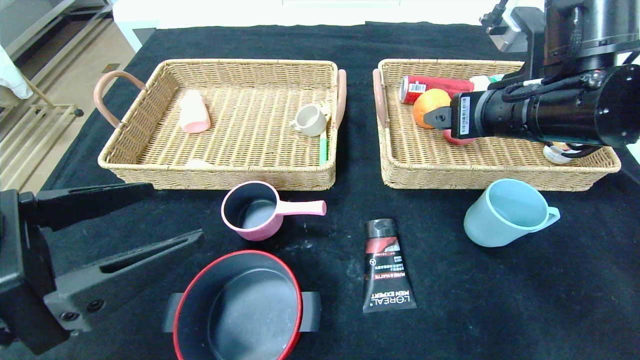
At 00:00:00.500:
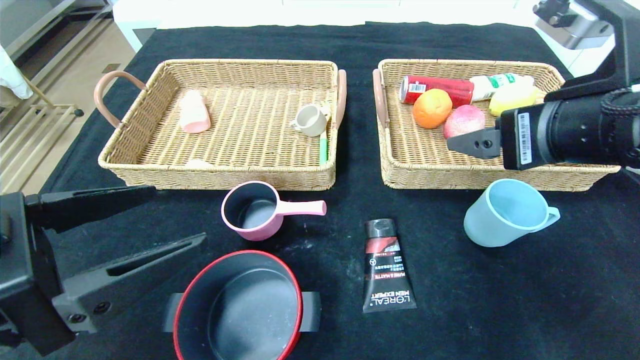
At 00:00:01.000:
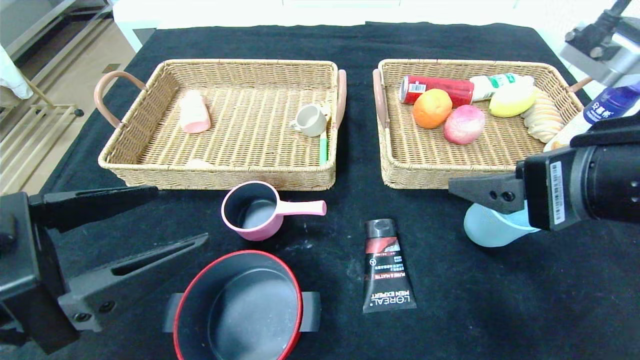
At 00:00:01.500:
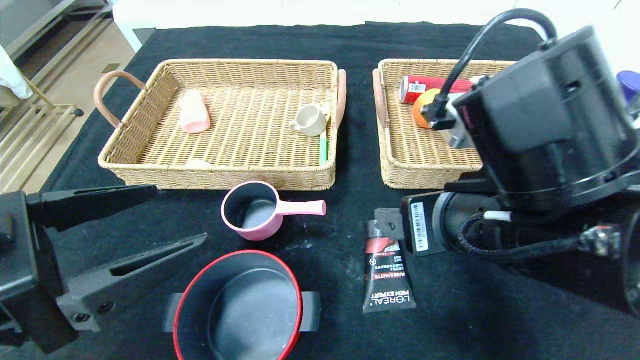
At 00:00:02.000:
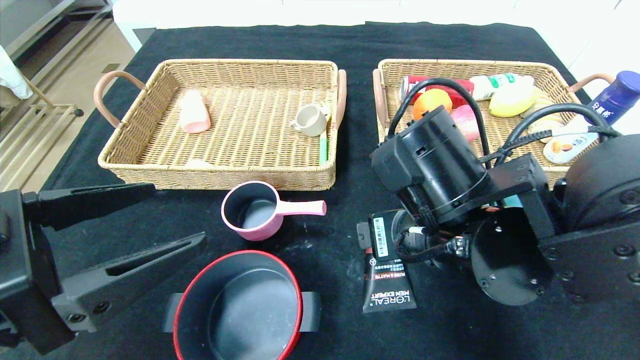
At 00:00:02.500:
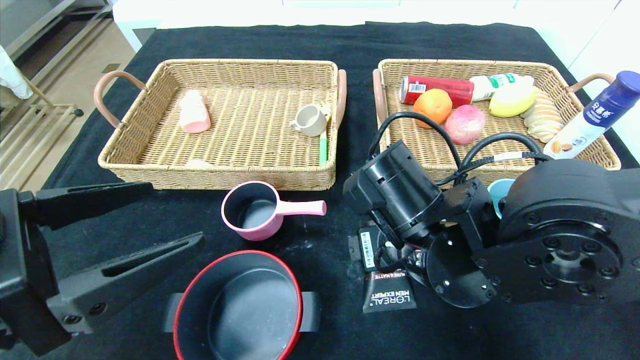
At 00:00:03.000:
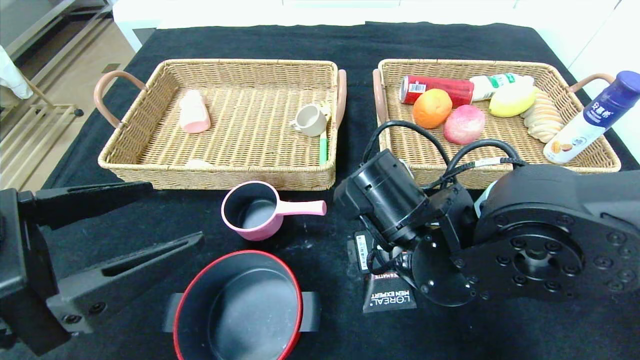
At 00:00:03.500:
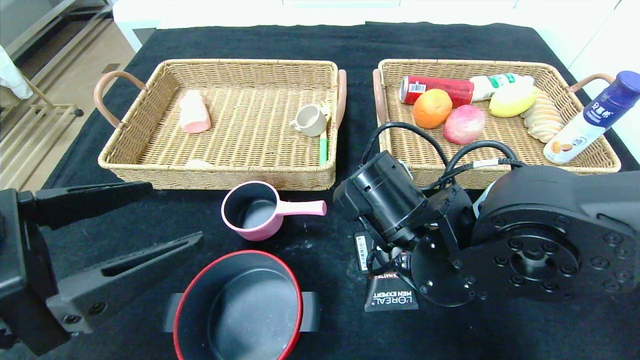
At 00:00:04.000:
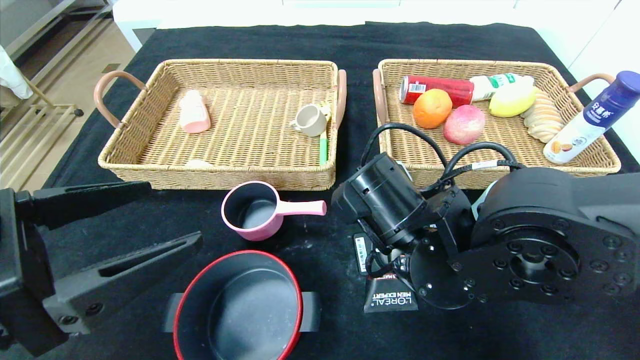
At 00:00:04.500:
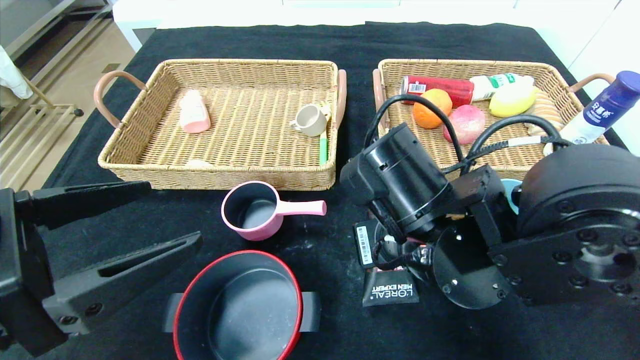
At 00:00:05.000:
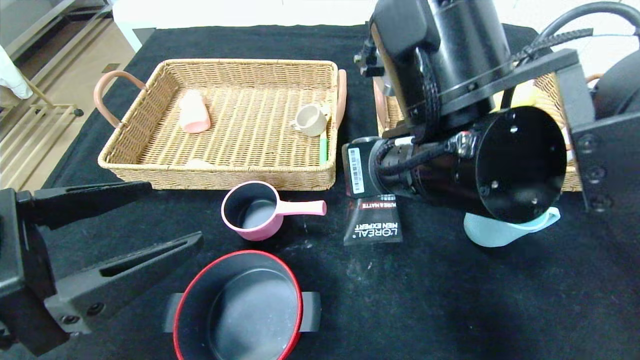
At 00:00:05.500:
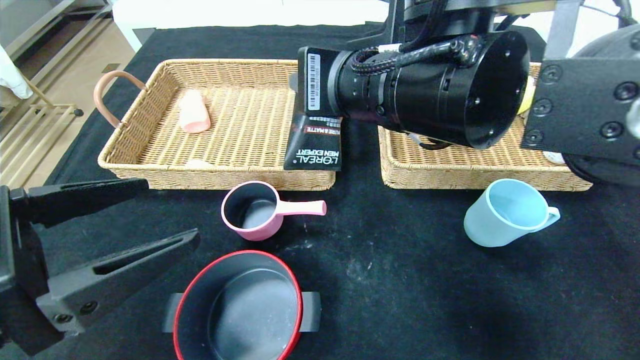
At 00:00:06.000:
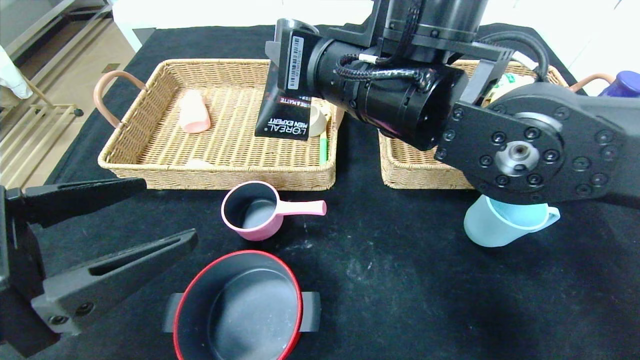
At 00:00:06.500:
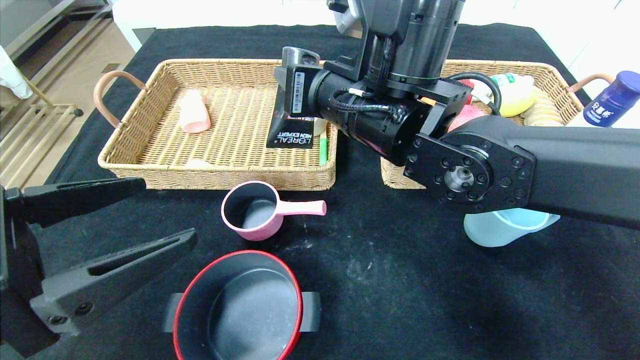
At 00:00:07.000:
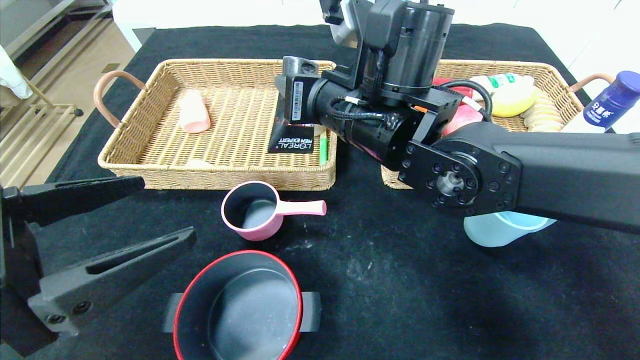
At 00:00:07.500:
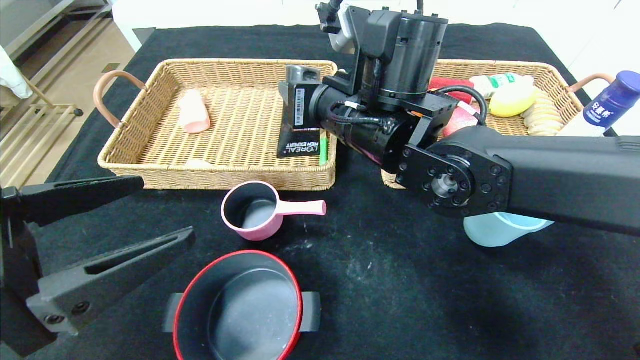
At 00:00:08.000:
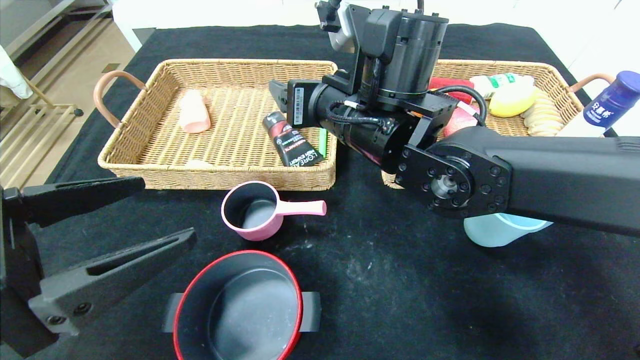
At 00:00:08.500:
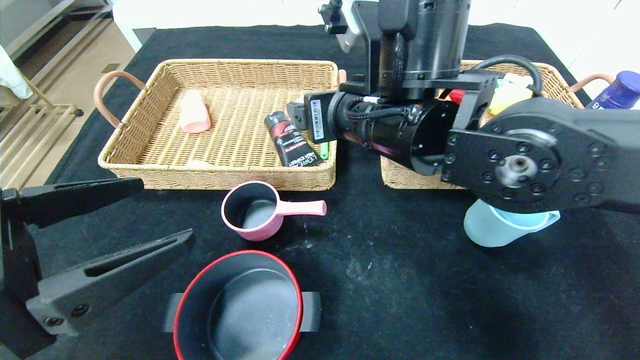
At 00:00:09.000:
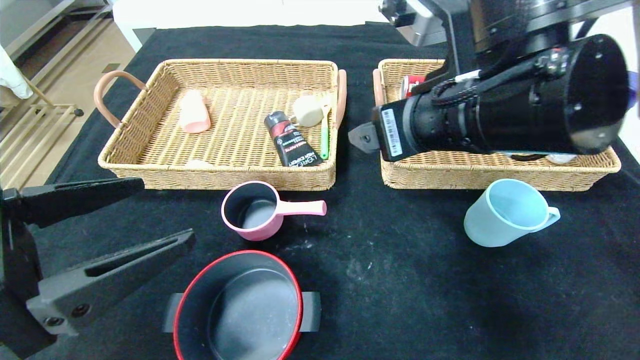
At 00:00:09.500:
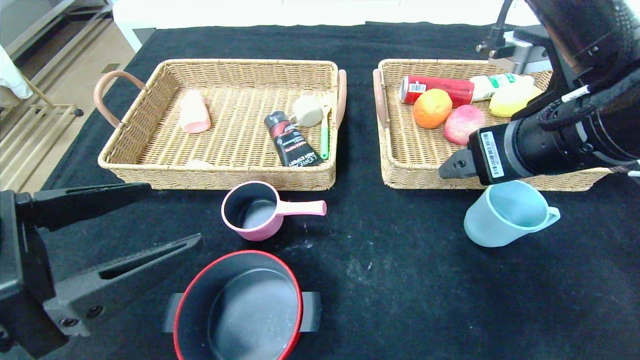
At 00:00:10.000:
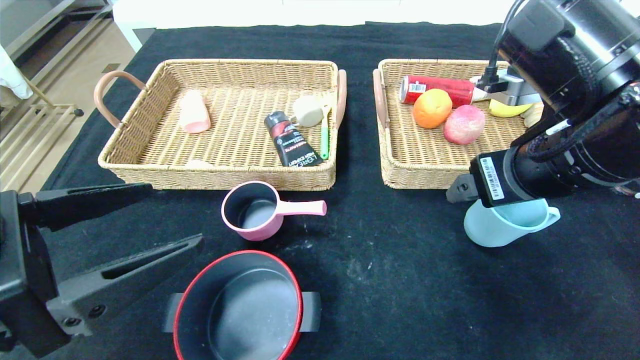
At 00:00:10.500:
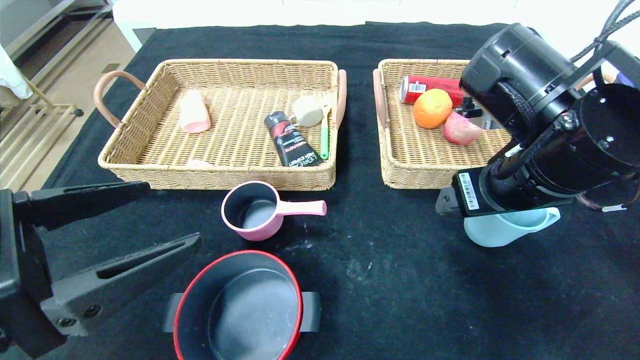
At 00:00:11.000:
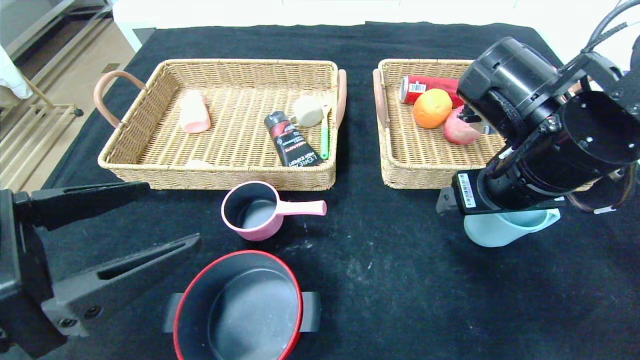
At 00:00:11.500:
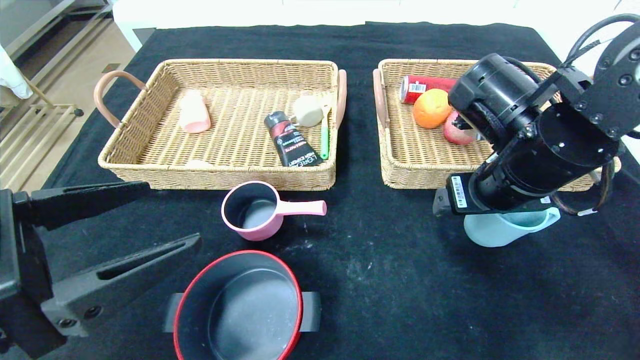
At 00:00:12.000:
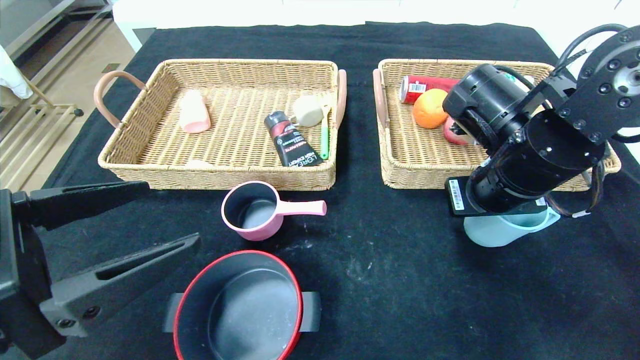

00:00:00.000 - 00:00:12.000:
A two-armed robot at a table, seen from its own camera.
00:00:00.000 - 00:00:02.000: The right gripper is displaced to the left, downward and backward by about 15 cm.
00:00:02.000 - 00:00:04.000: The right gripper closes its fingers.
00:00:04.000 - 00:00:06.000: The right gripper goes roughly 15 cm upward.
00:00:06.000 - 00:00:08.000: The right gripper moves roughly 5 cm, and opens its fingers.
00:00:08.000 - 00:00:10.000: The right gripper goes about 20 cm to the right and backward.
00:00:10.000 - 00:00:12.000: The right gripper moves forward, about 5 cm, and closes.

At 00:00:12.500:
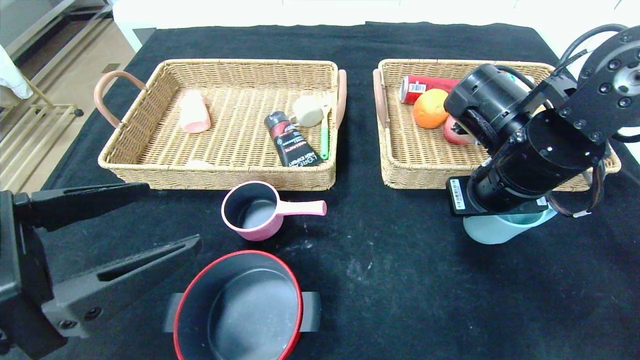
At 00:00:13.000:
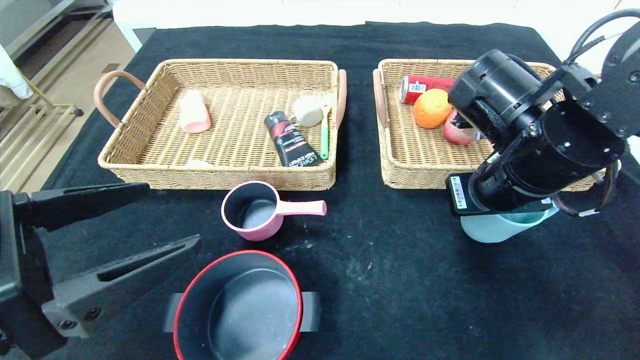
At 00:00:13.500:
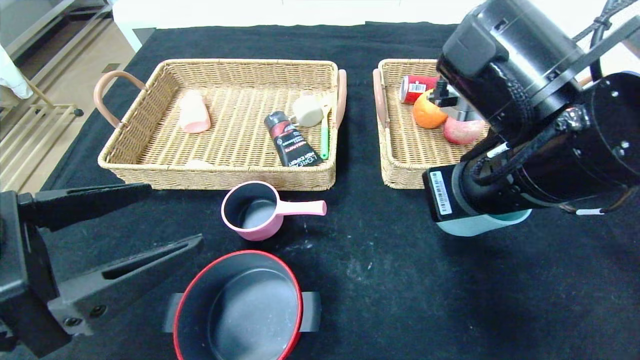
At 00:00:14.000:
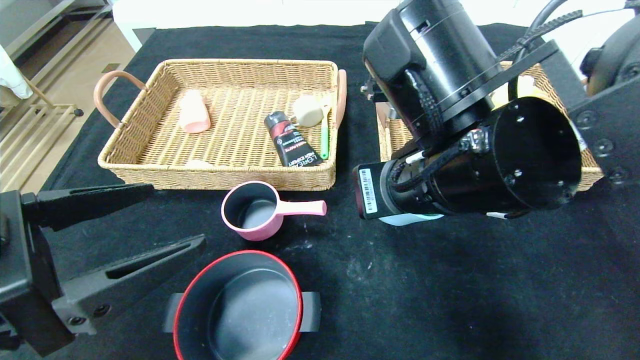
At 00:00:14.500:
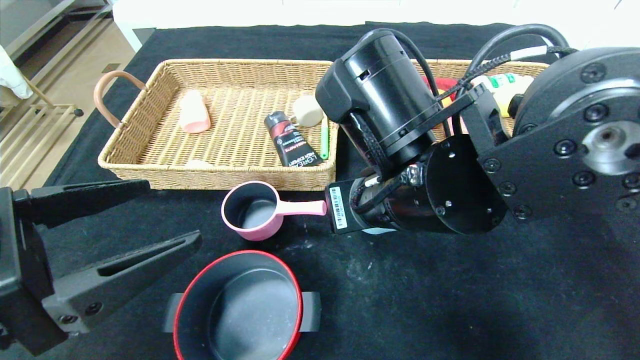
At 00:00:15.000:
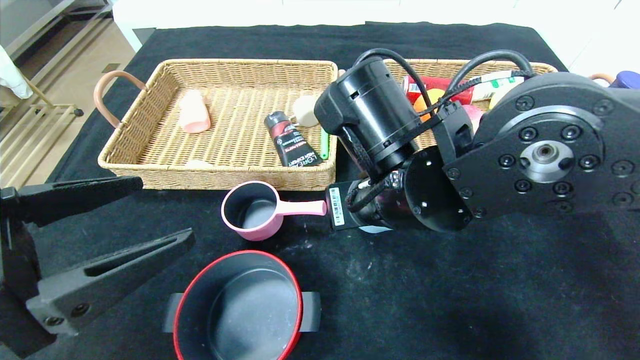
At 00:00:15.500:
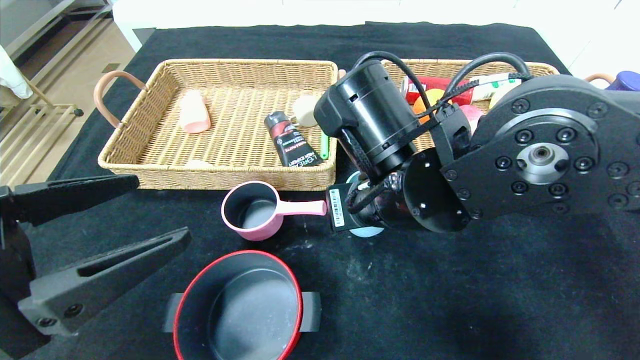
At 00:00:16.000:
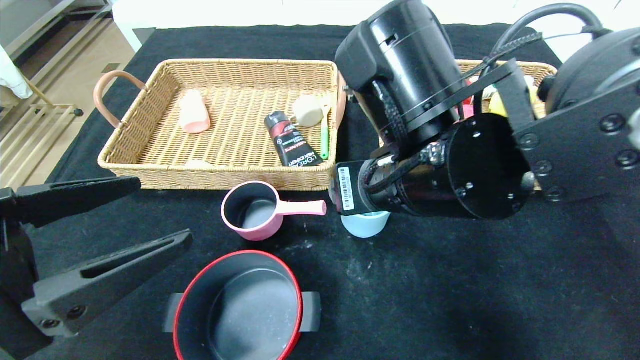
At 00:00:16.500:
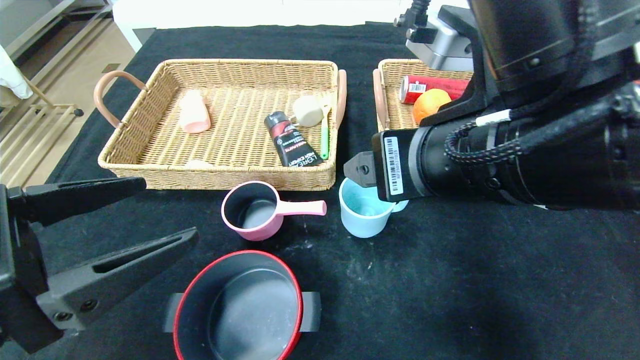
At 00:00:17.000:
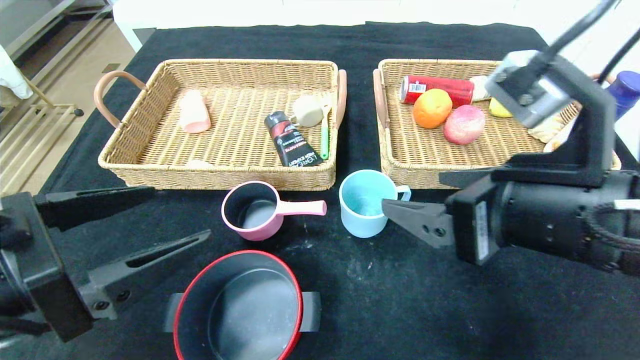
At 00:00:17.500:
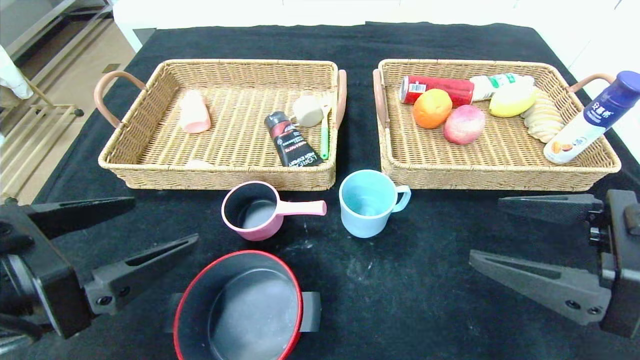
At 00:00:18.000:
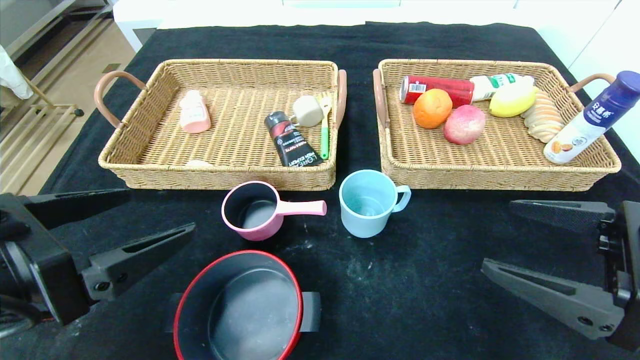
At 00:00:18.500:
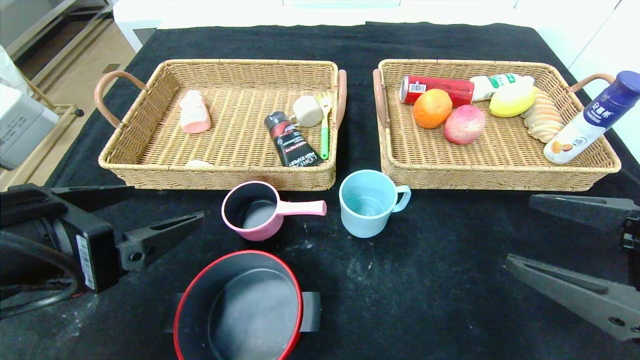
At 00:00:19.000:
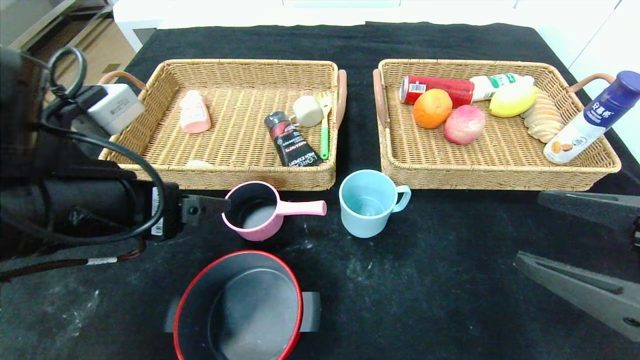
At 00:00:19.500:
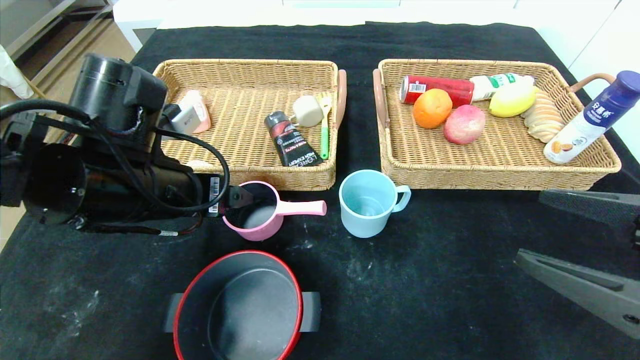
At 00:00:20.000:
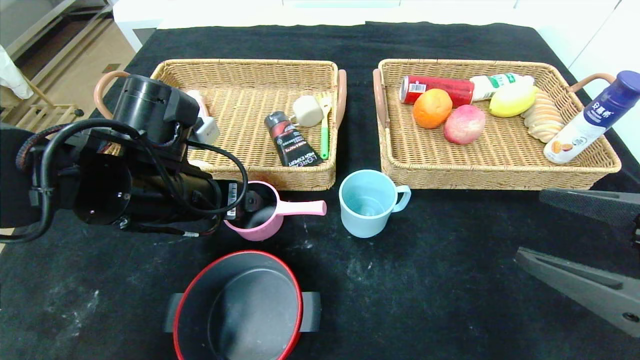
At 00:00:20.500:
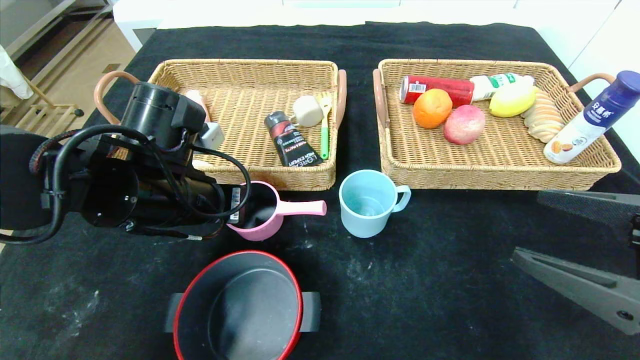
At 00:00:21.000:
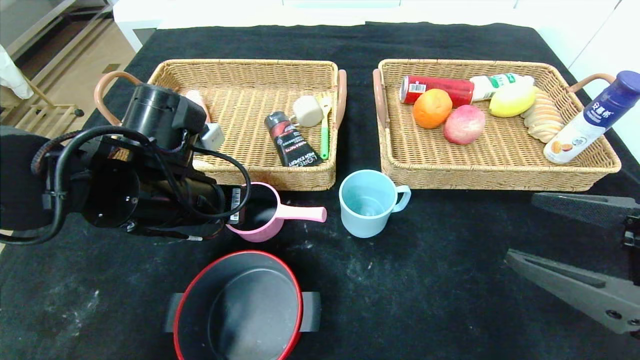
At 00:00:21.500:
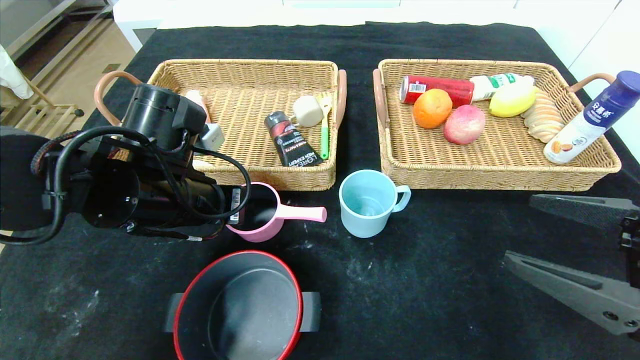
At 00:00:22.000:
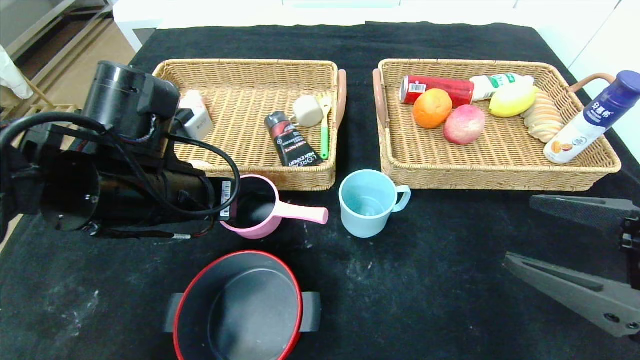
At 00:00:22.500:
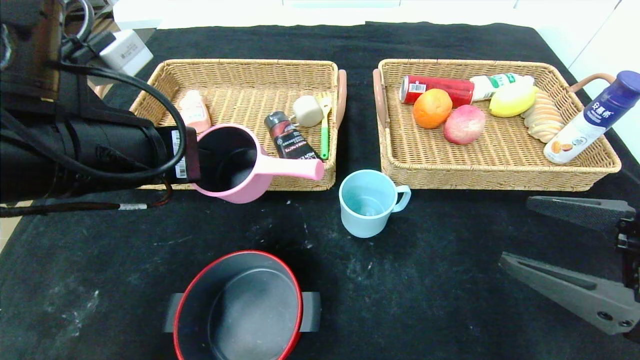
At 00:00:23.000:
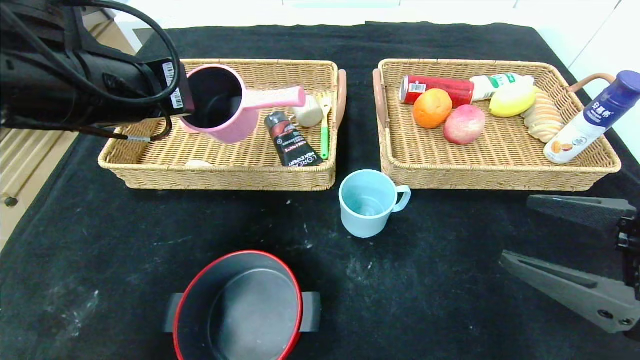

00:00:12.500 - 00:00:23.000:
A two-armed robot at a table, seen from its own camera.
Step, 00:00:12.500 - 00:00:15.500: Place the blue cup in the center of the table.
00:00:12.500 - 00:00:14.500: The right gripper shifts about 15 cm to the left and backward.
00:00:14.500 - 00:00:16.500: The right gripper moves about 10 cm, and opens up.
00:00:16.500 - 00:00:19.000: The left gripper moves forward, approximately 10 cm. Meanwhile the right gripper travels to the right and downward by about 20 cm.
00:00:19.000 - 00:00:21.000: The left gripper shifts approximately 10 cm forward, and closes up.
00:00:21.000 - 00:00:23.000: The left gripper goes approximately 10 cm upward.
